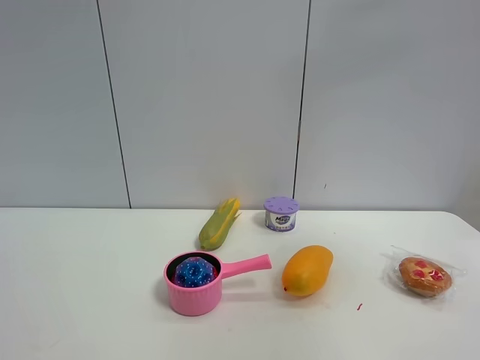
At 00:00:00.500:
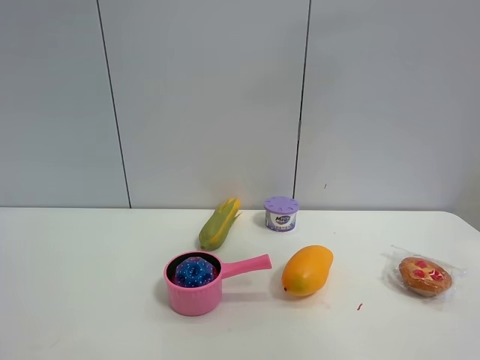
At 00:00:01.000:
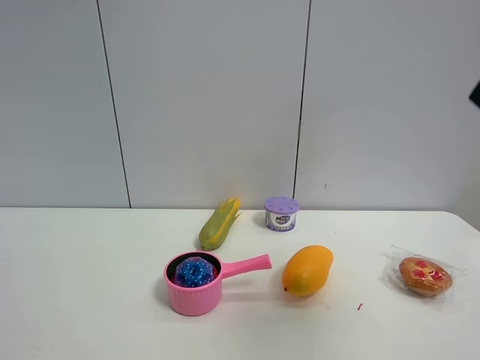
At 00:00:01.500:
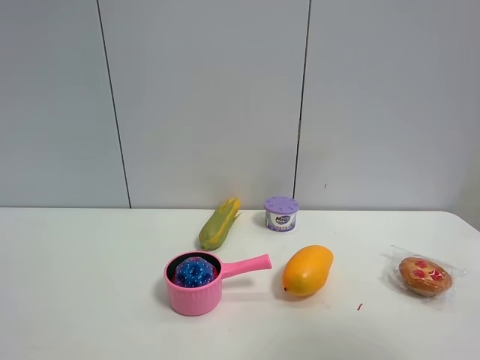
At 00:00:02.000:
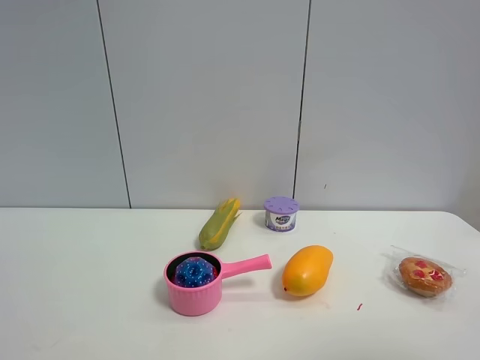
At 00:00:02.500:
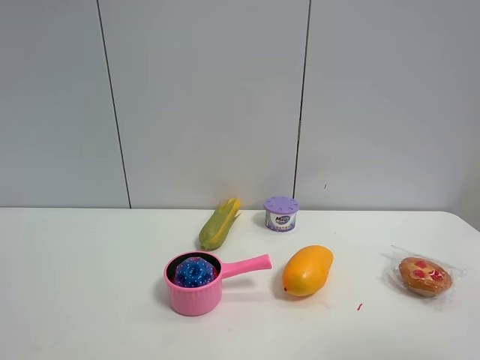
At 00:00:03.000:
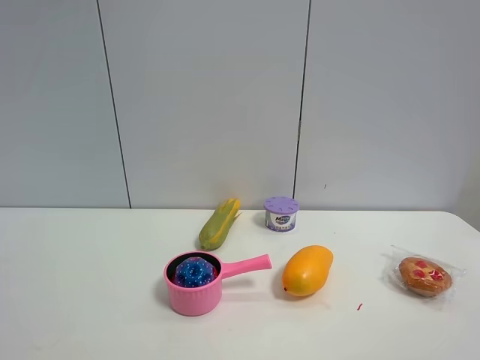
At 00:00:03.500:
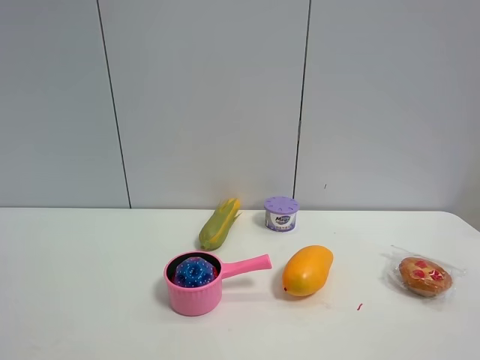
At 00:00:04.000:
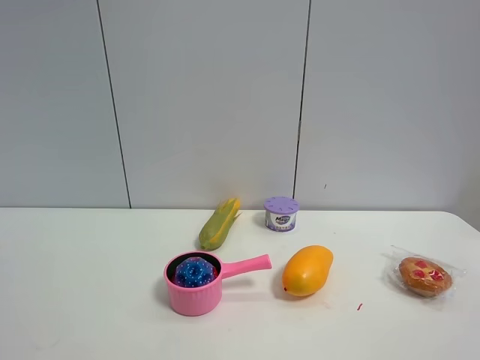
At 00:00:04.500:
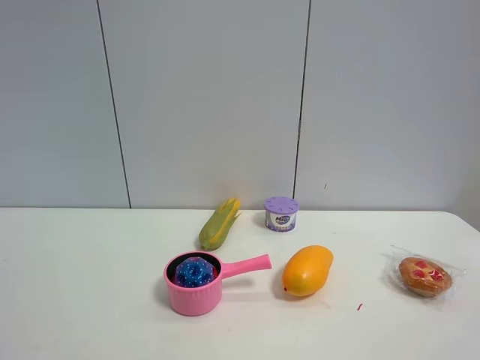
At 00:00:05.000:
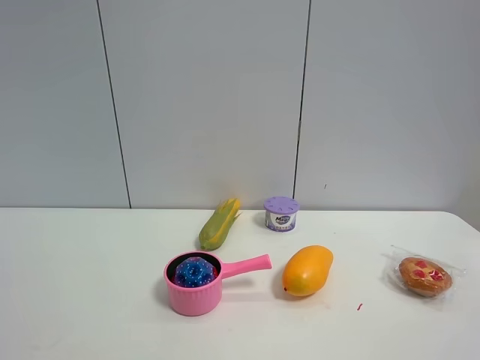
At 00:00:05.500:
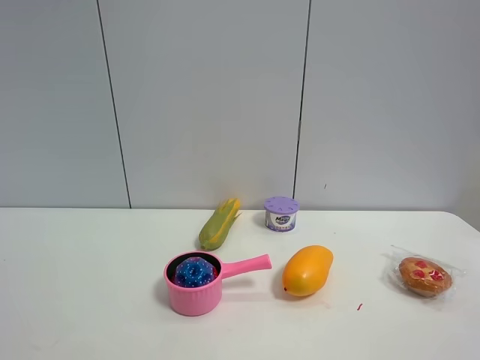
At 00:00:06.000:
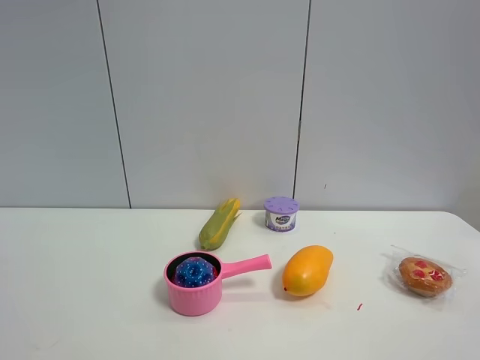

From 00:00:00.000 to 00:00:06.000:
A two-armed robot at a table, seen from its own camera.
Task of the whole recording: the gripper move the object.
From 00:00:00.000 to 00:00:02.000: The right gripper travels downward and backward by some 20 cm.
From 00:00:04.000 to 00:00:06.000: Neither gripper changes place.

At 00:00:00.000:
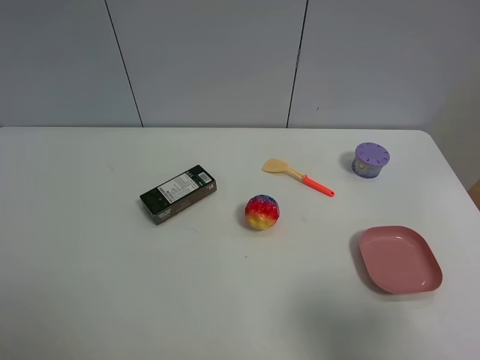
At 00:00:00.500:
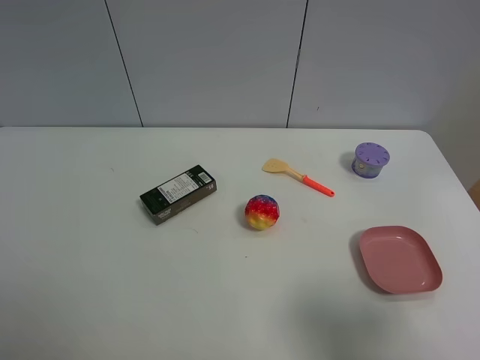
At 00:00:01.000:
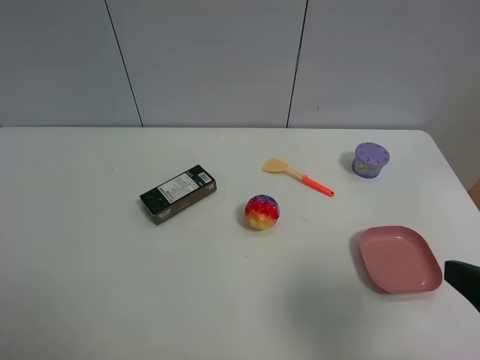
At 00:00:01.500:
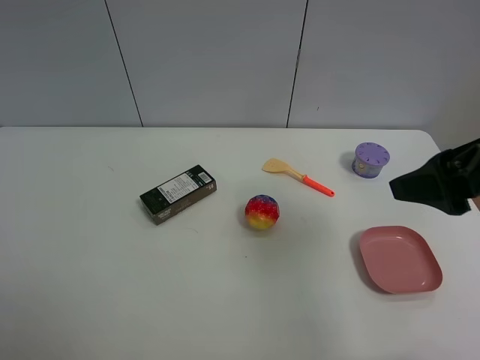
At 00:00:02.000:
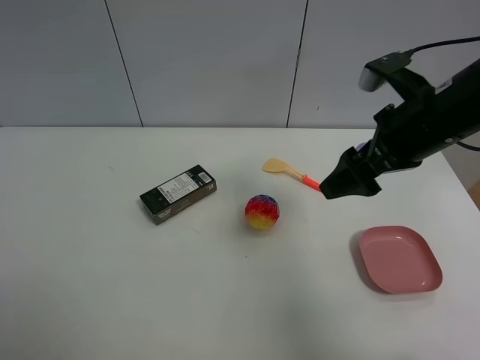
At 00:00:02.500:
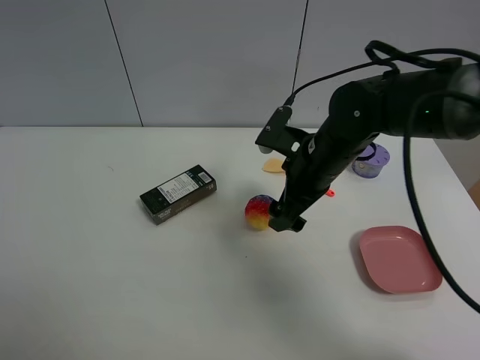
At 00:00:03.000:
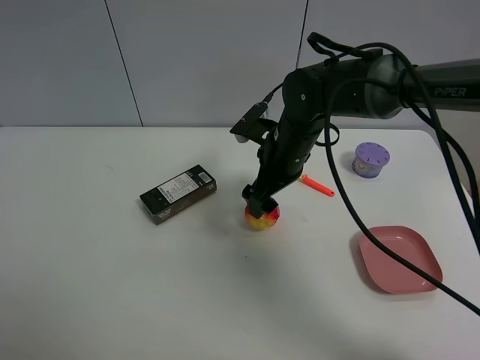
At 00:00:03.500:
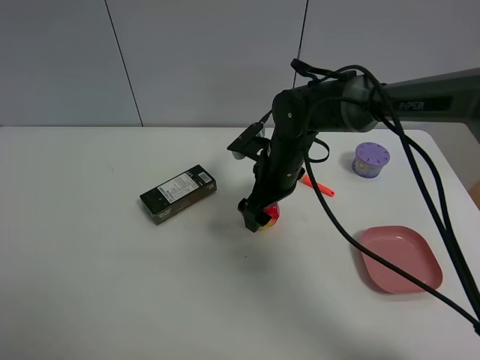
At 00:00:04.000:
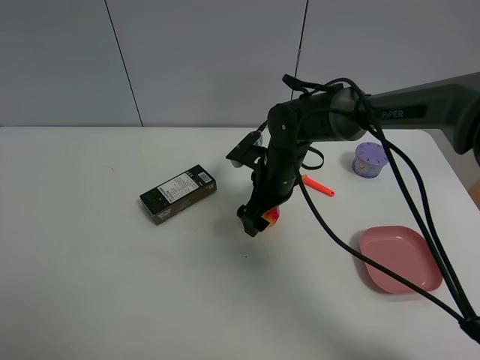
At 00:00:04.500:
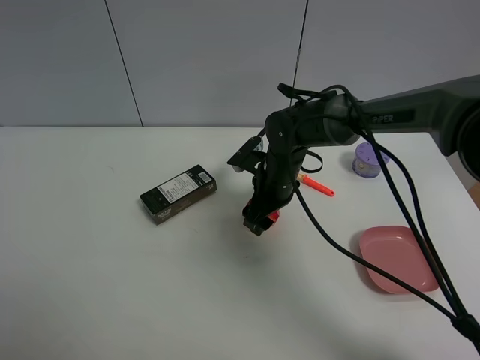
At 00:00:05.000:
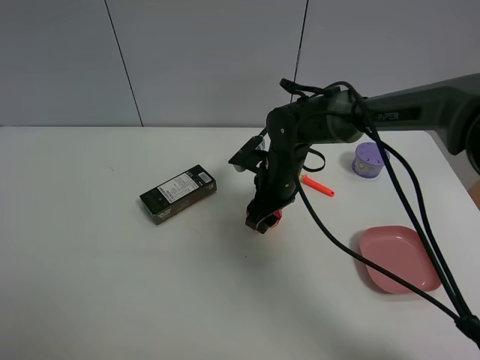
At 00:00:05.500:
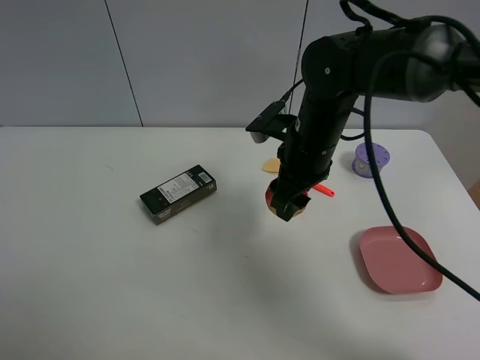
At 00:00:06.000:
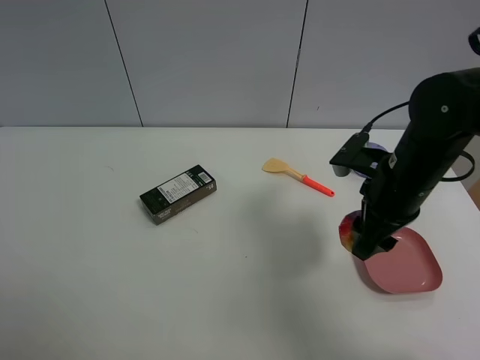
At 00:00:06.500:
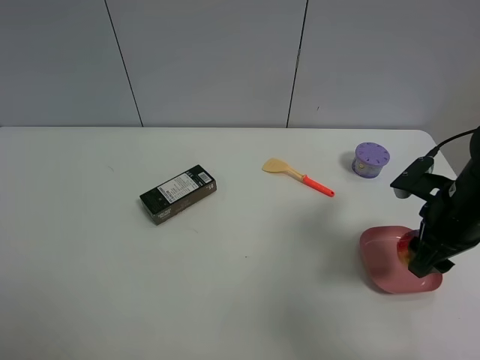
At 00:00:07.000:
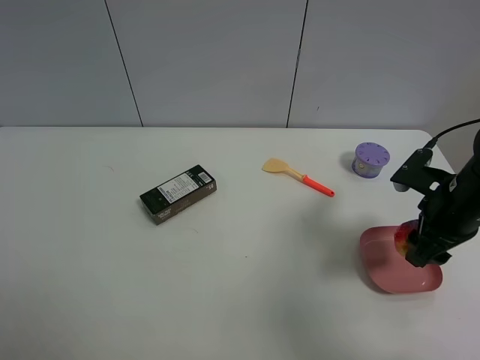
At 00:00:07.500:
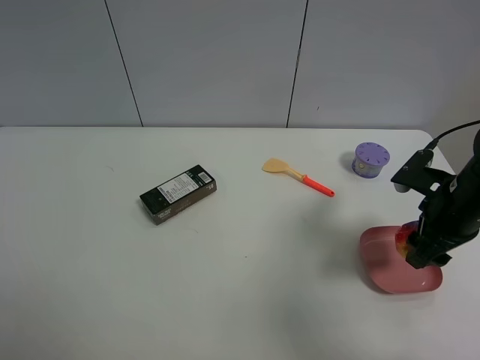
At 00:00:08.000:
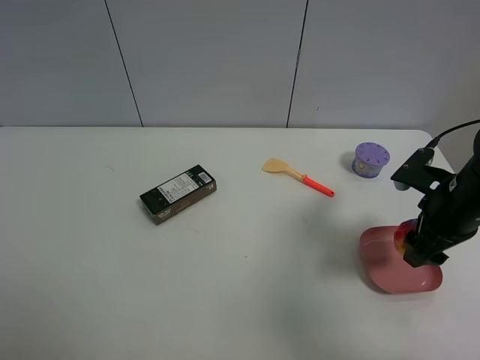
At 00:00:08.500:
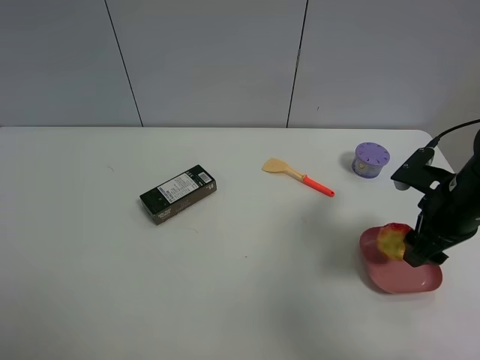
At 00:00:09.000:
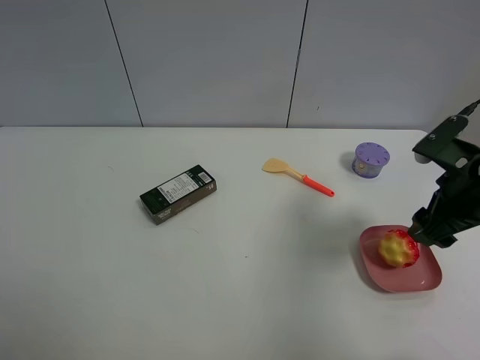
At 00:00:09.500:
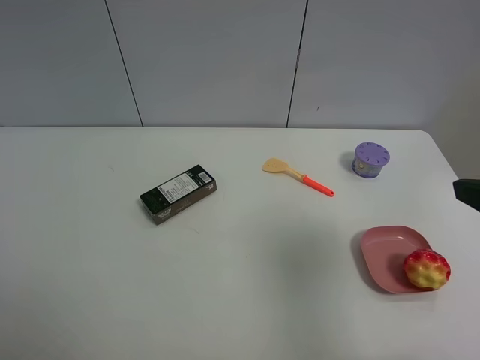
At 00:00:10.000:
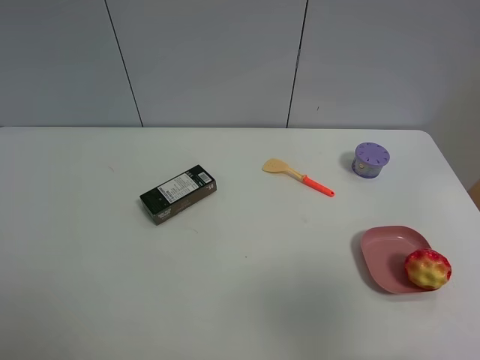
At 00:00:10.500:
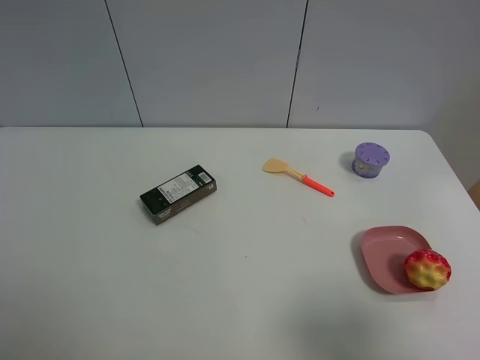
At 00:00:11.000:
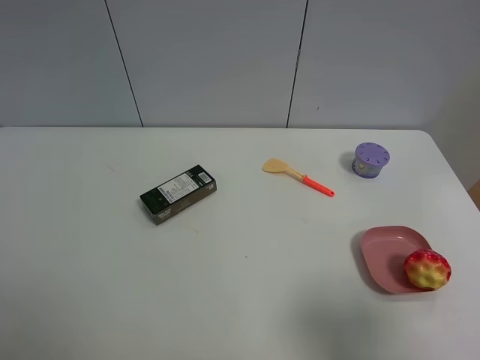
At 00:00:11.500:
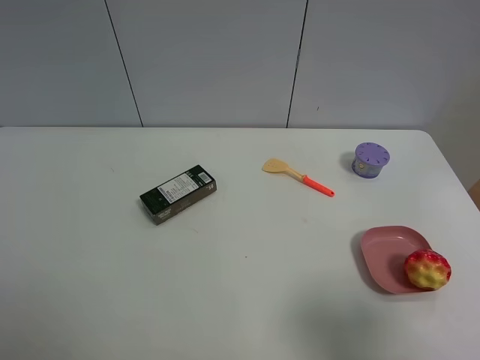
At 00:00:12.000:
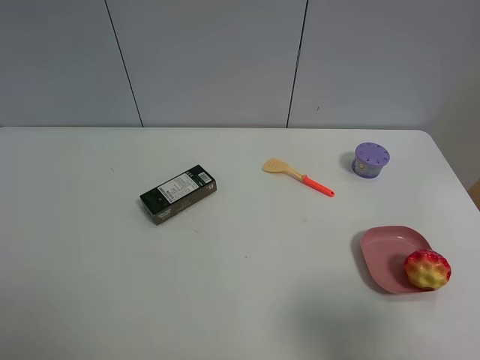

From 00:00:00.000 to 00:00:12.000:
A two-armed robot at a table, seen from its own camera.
Task of the whole recording: the gripper move the object.
Step, from 00:00:00.000 to 00:00:04.500: Grasp the colorful ball with the right gripper.
Step, from 00:00:05.000 to 00:00:08.000: Place the colorful ball into the pink plate with the right gripper.
From 00:00:00.000 to 00:00:02.000: The right gripper heads forward, covering some 25 cm.
From 00:00:02.000 to 00:00:04.000: The right gripper is displaced downward, to the left and forward by approximately 20 cm.
From 00:00:04.000 to 00:00:06.000: The right gripper is displaced to the right, backward and upward by approximately 20 cm, and closes its fingers.
From 00:00:06.000 to 00:00:08.000: The right gripper heads to the right, covering about 10 cm.
From 00:00:08.000 to 00:00:10.000: The right gripper heads backward and upward, covering approximately 30 cm, and opens its fingers.
From 00:00:10.000 to 00:00:12.000: The right gripper is displaced downward by roughly 5 cm.
